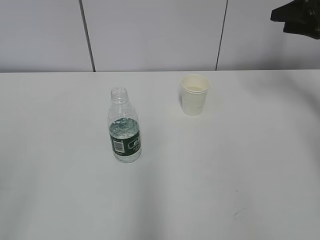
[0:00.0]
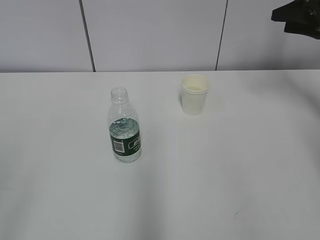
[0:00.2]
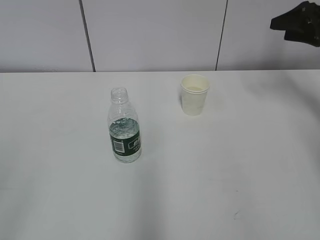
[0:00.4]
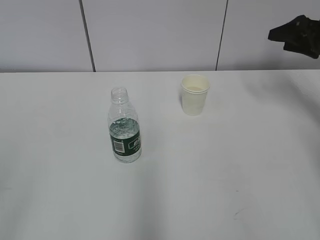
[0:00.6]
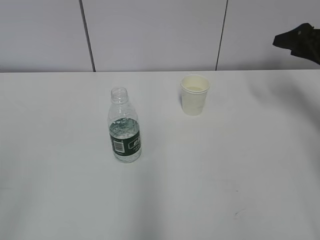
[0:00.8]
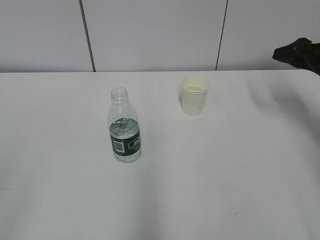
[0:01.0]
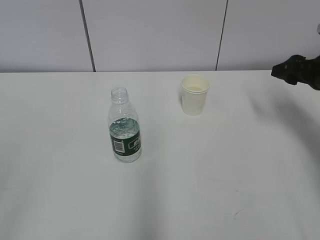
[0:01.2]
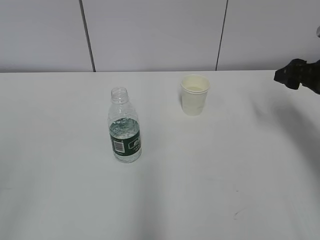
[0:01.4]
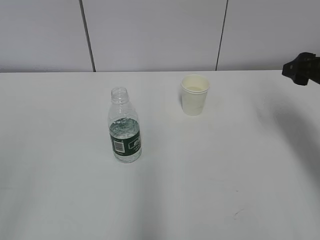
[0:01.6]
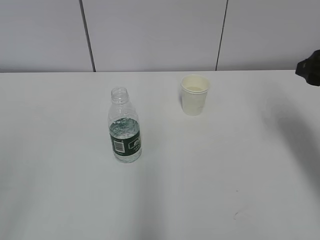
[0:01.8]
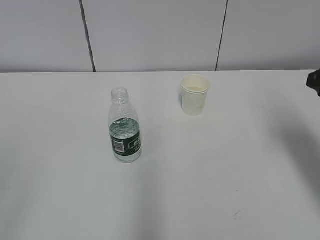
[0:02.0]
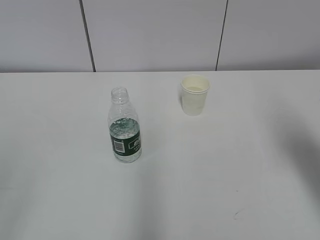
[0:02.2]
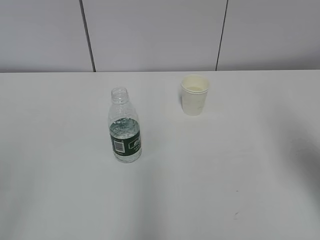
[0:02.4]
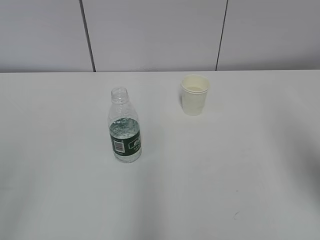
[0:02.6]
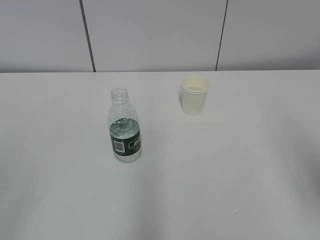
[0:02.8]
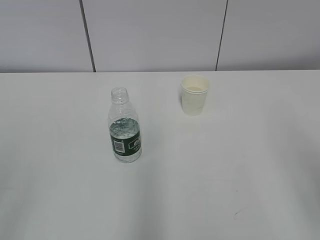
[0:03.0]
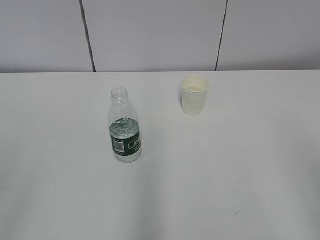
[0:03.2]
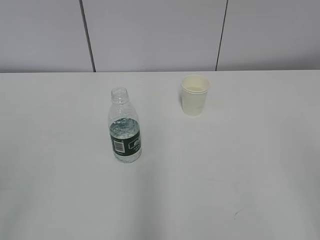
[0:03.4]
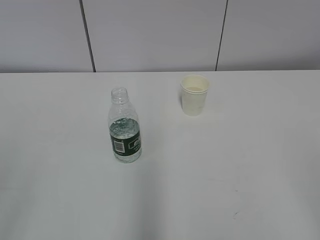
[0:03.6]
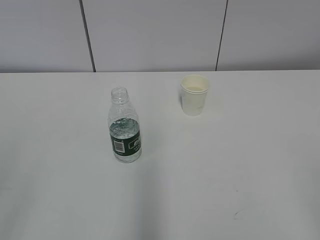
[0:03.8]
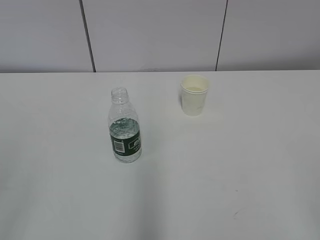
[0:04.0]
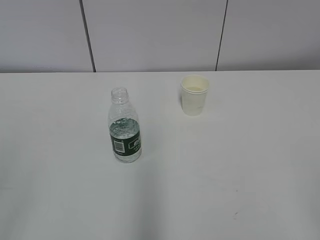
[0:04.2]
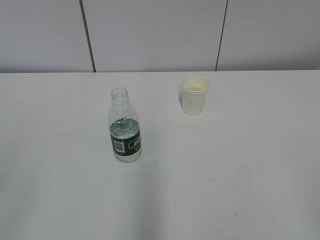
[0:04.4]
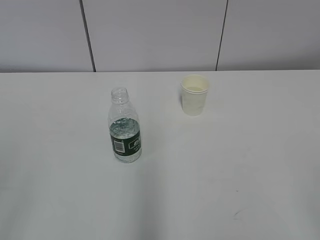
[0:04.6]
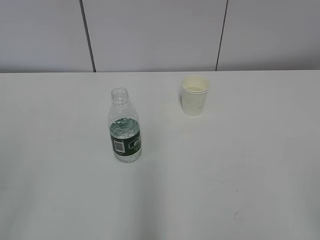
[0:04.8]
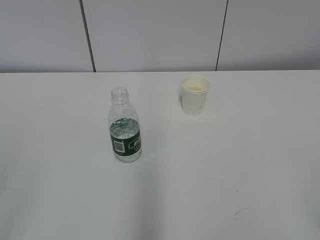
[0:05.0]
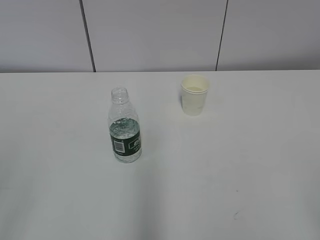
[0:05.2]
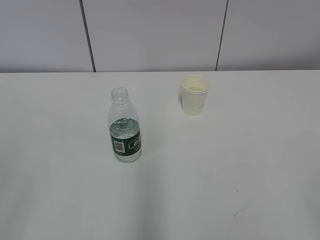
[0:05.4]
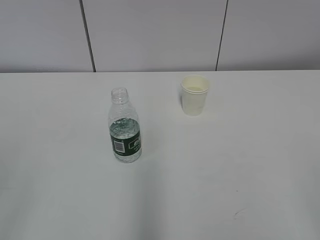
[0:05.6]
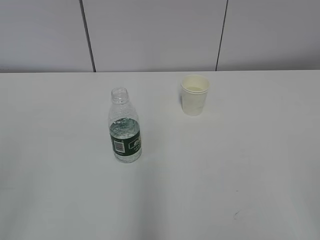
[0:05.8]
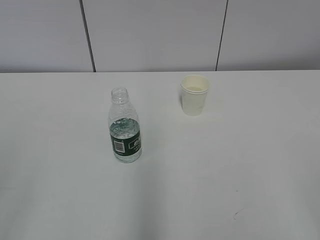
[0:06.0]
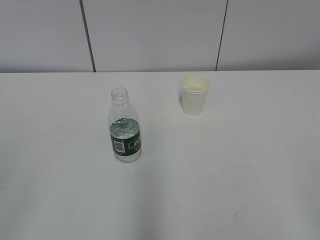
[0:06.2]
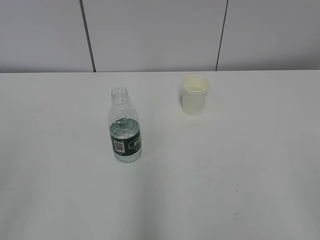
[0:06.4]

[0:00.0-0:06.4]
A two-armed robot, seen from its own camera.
0.0 to 1.6 s: The right gripper shifts some 15 cm backward and to the left.
1.6 to 3.2 s: The right gripper travels backward by roughly 30 cm.
4.8 to 6.4 s: Both grippers stay about where they are.

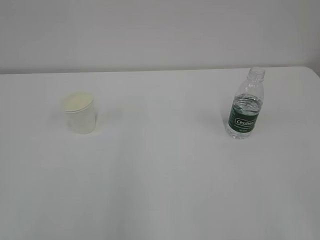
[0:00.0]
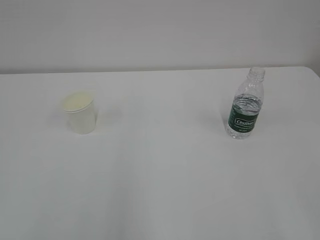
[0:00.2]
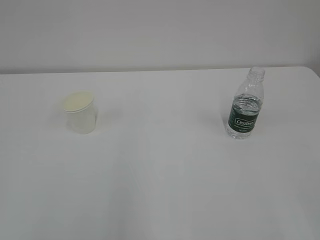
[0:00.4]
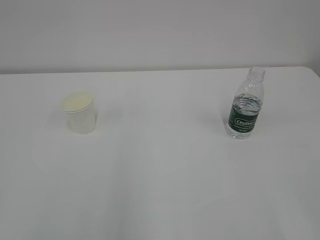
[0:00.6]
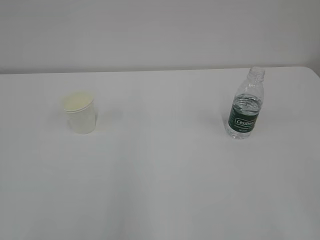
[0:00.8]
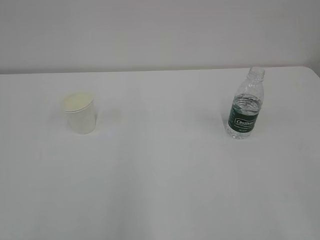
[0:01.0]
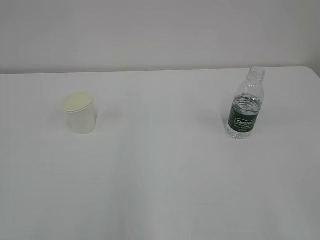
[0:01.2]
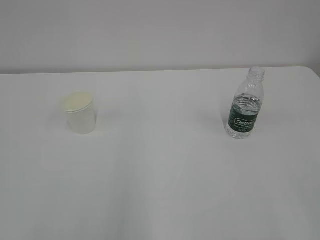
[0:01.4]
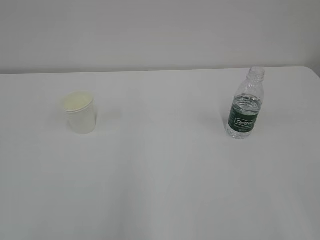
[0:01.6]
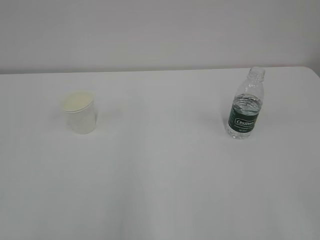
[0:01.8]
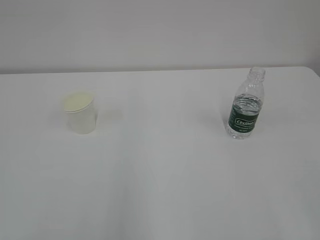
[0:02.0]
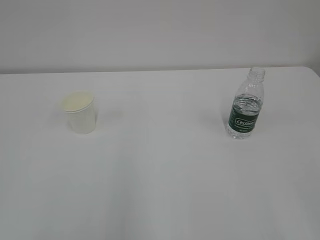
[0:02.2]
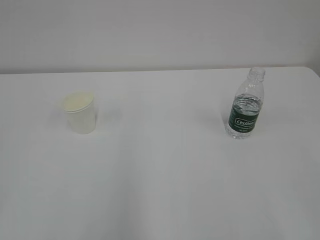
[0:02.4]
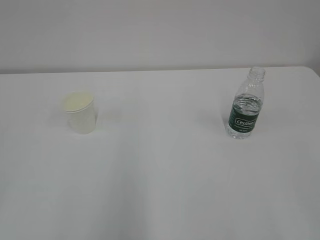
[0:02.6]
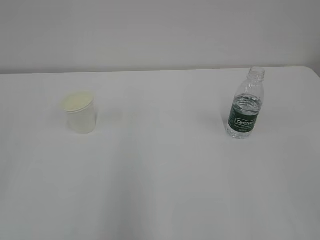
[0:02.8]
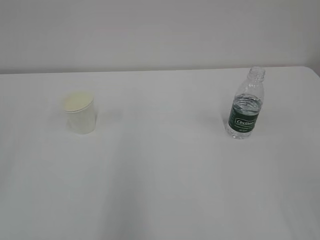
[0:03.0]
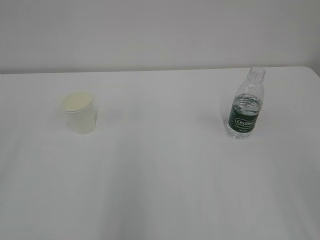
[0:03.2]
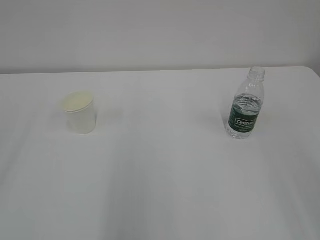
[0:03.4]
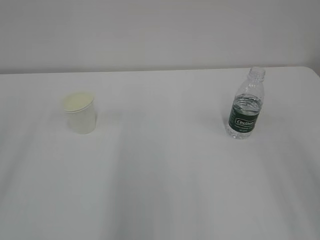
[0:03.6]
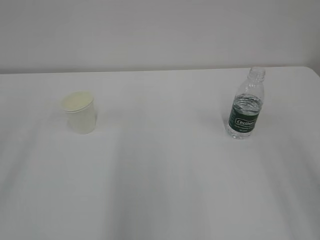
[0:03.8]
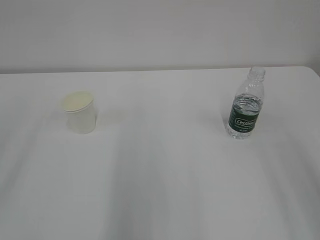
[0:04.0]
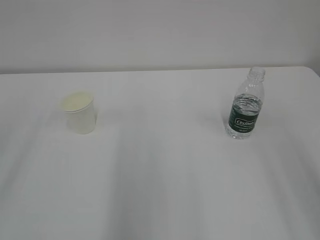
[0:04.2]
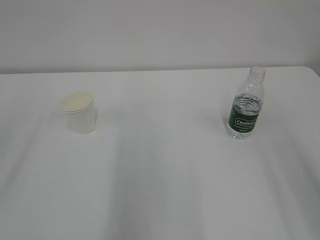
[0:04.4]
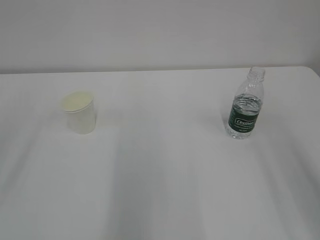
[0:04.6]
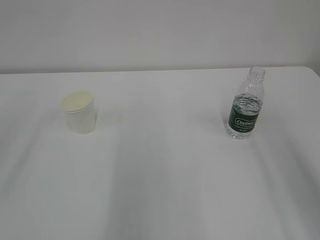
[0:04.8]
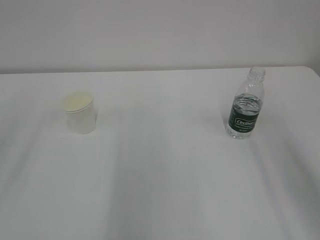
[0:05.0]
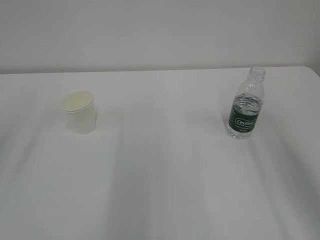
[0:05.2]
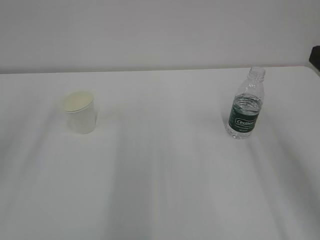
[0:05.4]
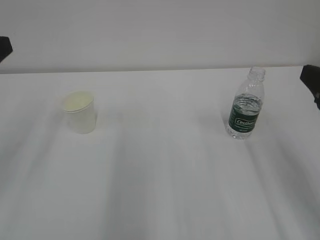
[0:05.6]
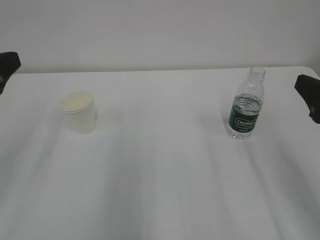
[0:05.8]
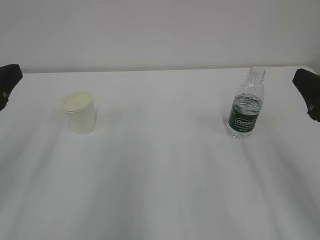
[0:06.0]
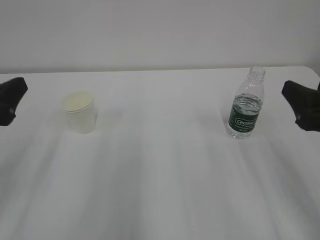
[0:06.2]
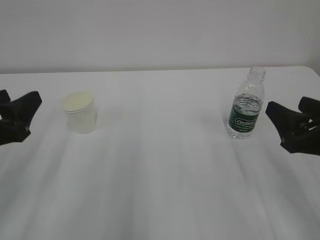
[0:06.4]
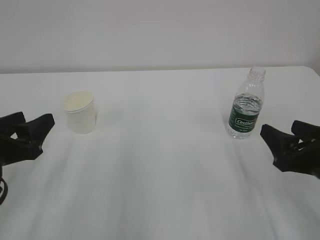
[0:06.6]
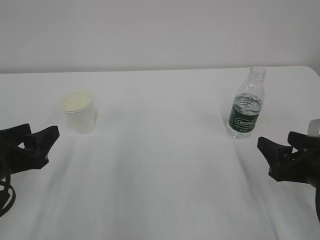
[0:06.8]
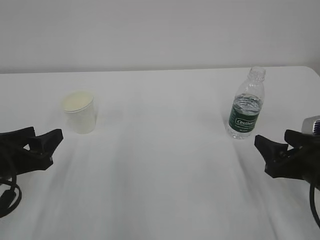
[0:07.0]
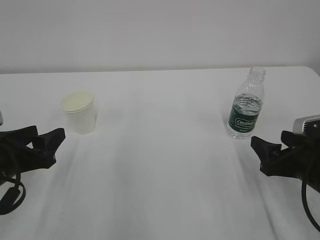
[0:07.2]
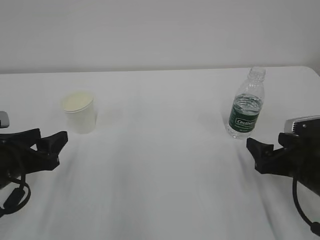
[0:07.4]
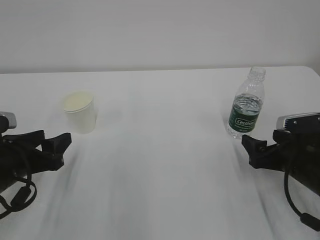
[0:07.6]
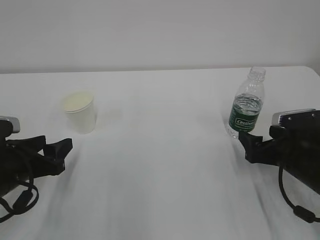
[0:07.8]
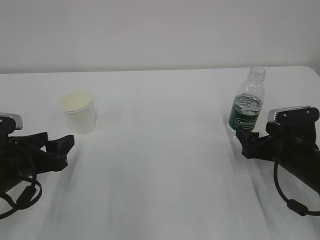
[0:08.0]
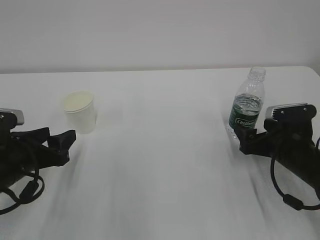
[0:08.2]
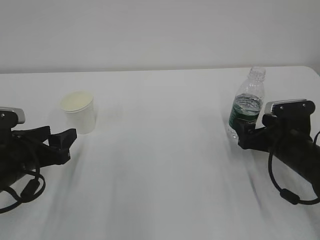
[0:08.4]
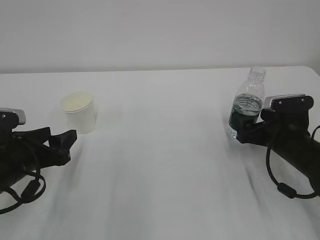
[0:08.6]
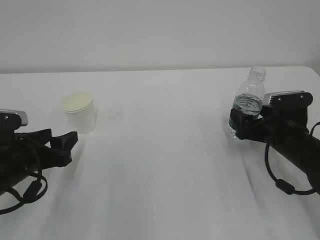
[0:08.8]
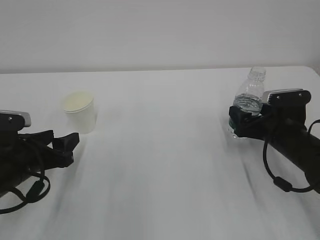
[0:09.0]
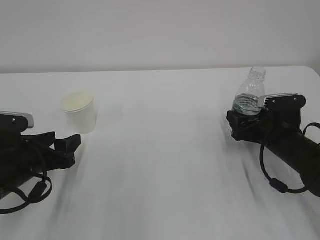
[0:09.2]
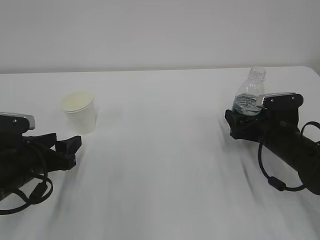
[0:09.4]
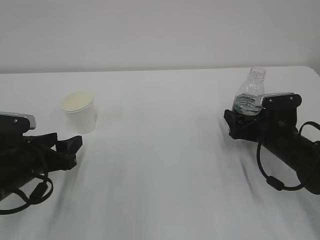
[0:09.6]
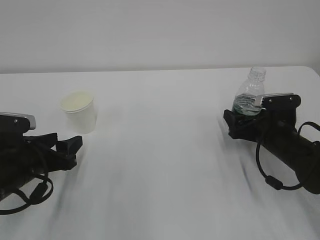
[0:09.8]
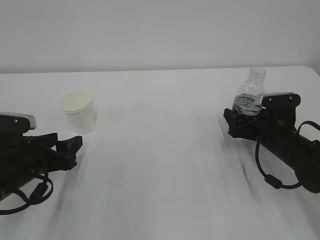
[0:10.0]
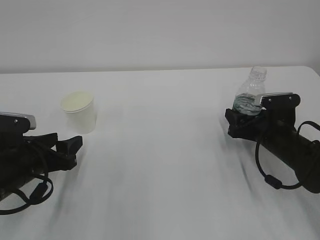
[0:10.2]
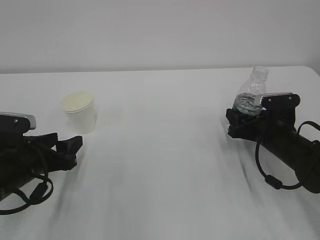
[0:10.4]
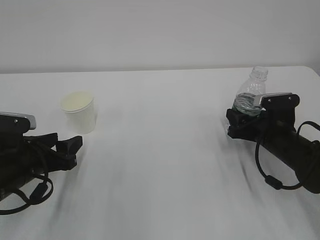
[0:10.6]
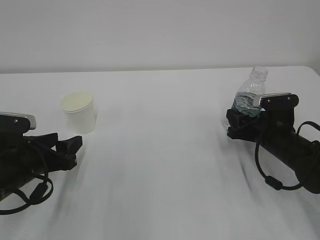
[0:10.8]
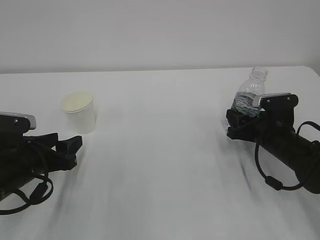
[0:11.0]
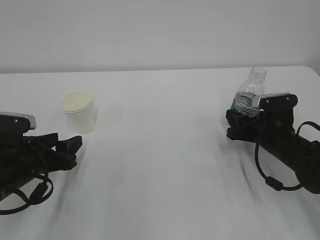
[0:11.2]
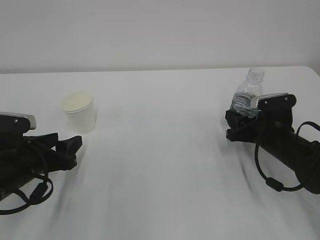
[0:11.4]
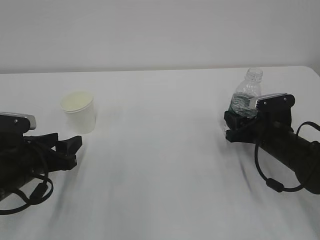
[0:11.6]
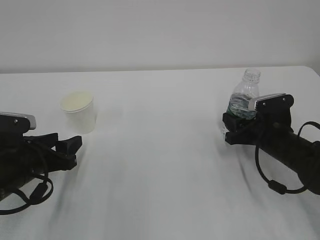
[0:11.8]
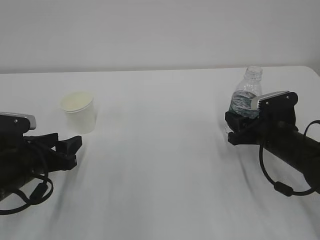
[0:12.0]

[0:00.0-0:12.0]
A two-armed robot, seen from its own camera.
4.4 to 6.0 s: The grippers both shift downward and forward by some 10 cm.
6.0 to 7.6 s: The right gripper travels downward and forward by about 15 cm. Meanwhile the left gripper travels downward by roughly 15 cm.
7.6 to 9.0 s: The right gripper heads forward, covering some 5 cm.
9.0 to 10.4 s: The right gripper closes up.
10.4 to 12.0 s: The right gripper closes its fingers.

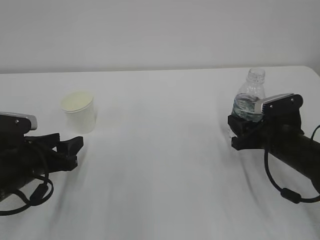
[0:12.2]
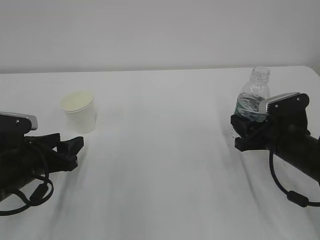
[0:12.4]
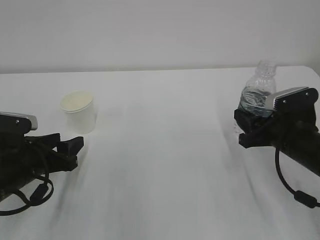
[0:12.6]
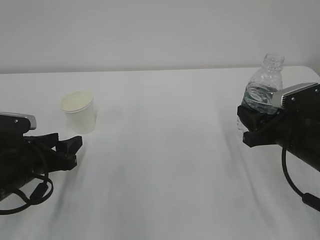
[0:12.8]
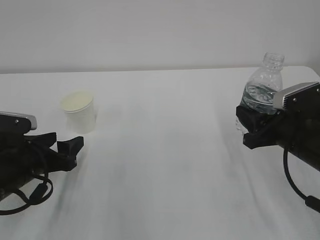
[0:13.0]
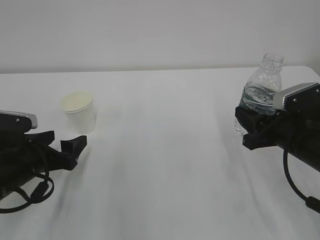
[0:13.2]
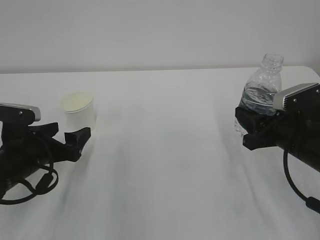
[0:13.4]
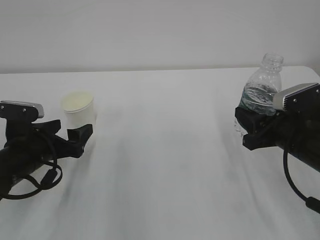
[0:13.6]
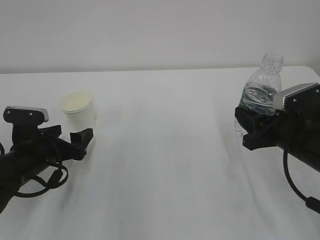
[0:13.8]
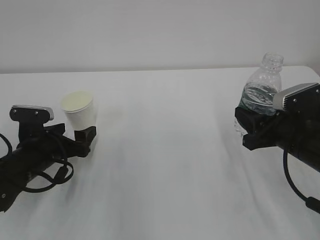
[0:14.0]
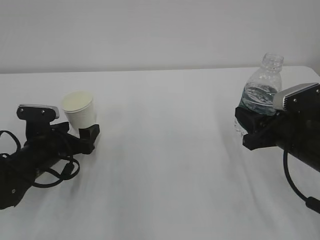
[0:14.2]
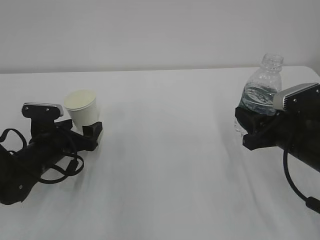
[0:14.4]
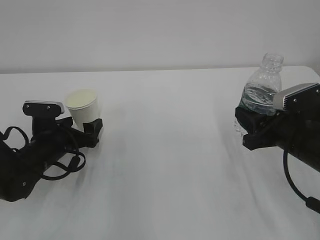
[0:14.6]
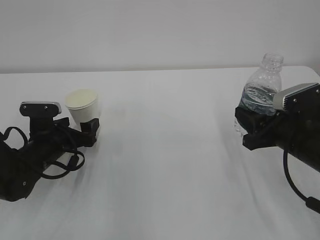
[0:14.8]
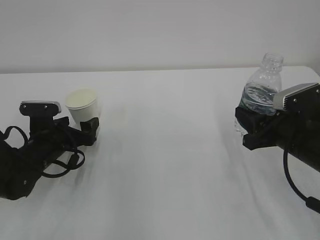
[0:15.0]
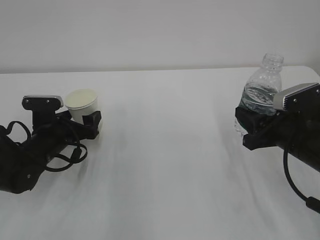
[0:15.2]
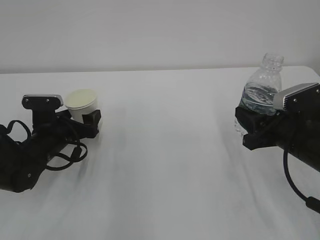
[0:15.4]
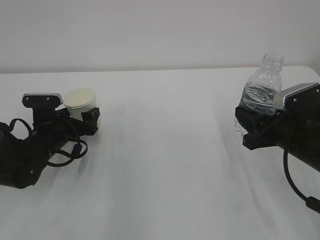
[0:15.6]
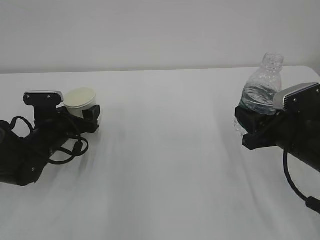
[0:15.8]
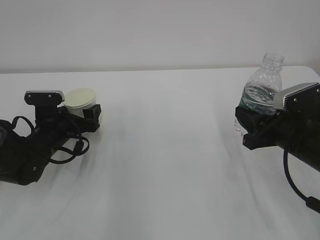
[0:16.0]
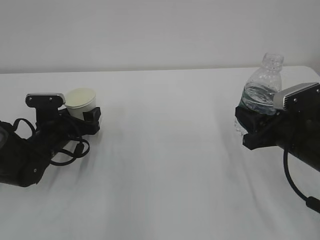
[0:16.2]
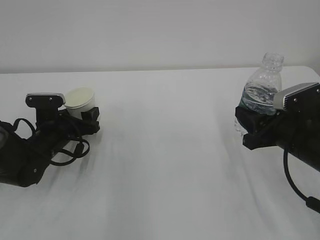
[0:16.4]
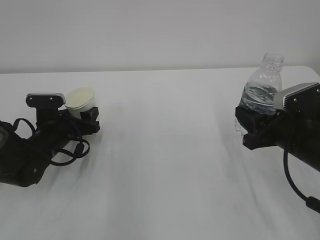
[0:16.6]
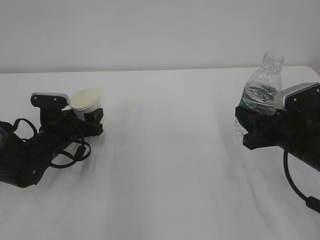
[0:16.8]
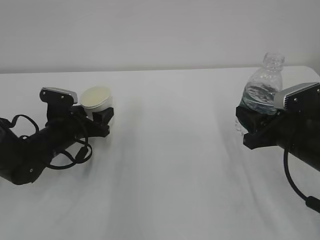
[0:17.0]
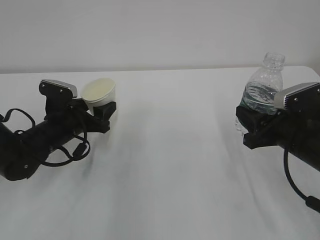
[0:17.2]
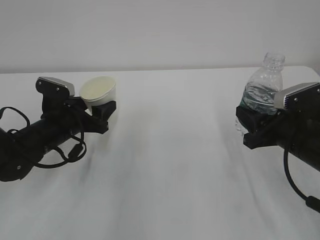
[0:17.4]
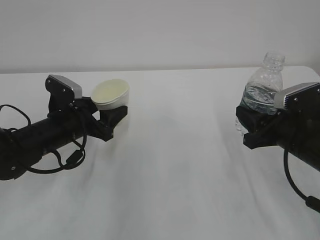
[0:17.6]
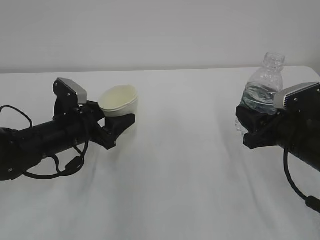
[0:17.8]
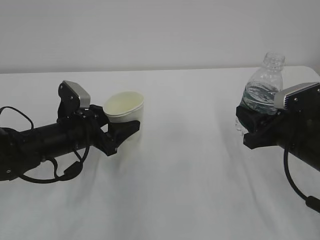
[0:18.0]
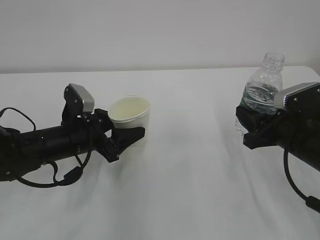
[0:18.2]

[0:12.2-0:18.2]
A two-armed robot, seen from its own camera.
12.2 to 13.8 s: The right gripper moves some 5 cm, while the left gripper opens.
13.8 to 15.2 s: The left gripper goes approximately 5 cm forward.
15.2 to 16.6 s: The left gripper closes up.
16.6 to 18.2 s: The left gripper travels to the right by about 5 cm.
